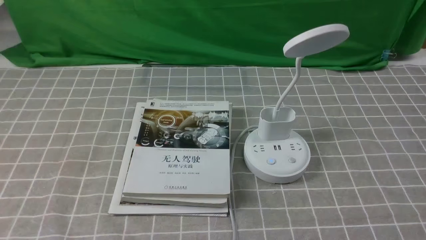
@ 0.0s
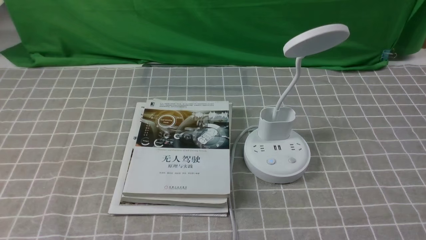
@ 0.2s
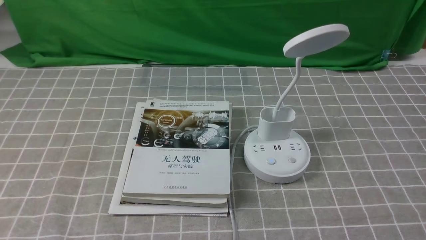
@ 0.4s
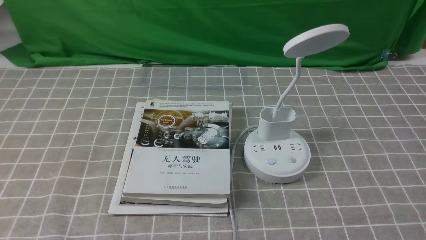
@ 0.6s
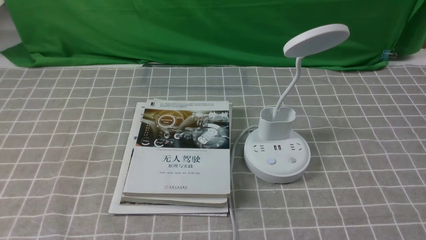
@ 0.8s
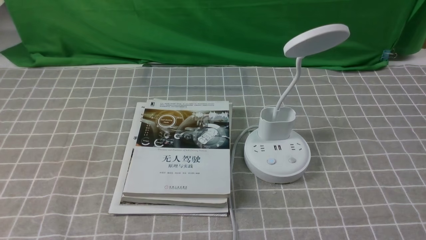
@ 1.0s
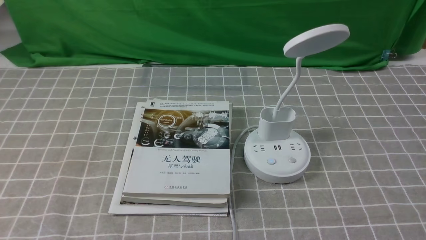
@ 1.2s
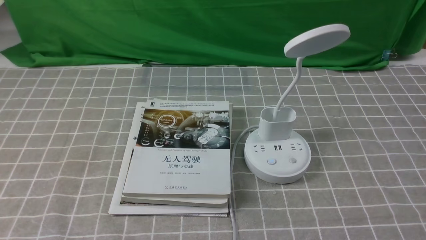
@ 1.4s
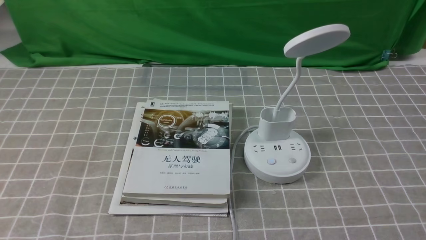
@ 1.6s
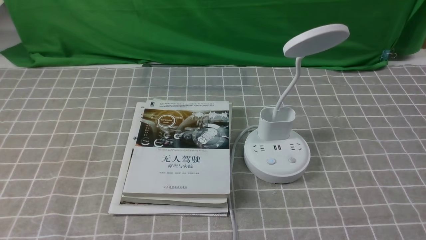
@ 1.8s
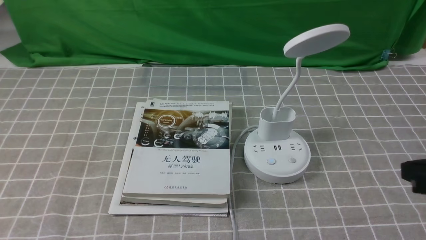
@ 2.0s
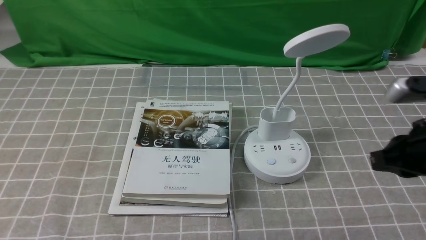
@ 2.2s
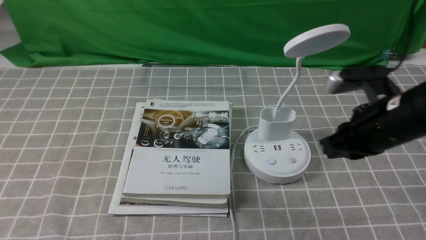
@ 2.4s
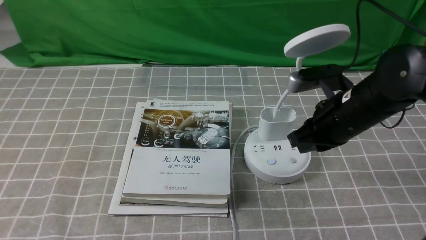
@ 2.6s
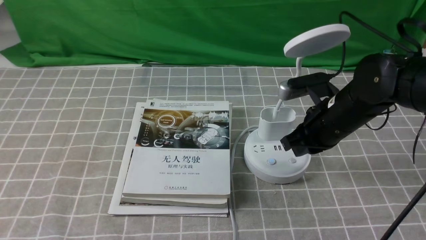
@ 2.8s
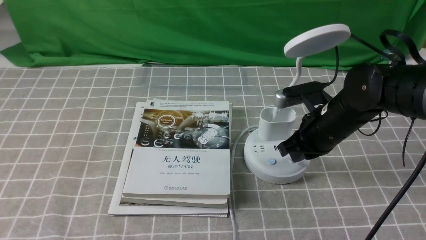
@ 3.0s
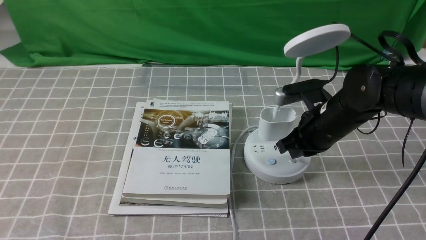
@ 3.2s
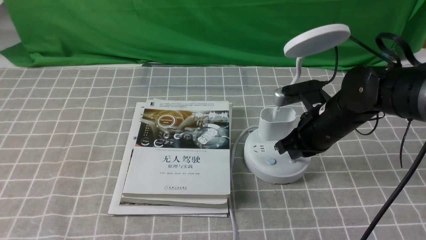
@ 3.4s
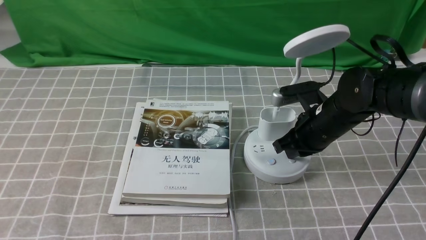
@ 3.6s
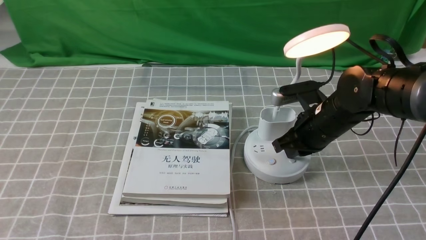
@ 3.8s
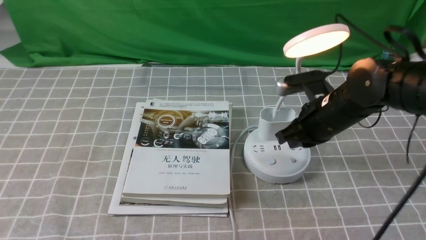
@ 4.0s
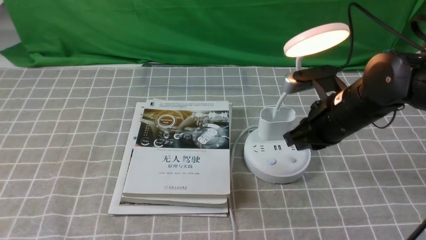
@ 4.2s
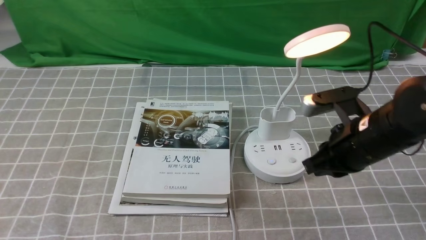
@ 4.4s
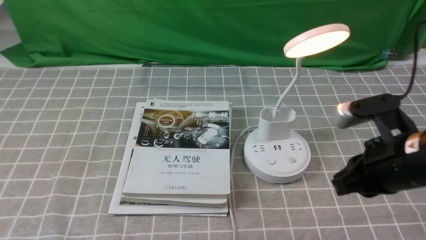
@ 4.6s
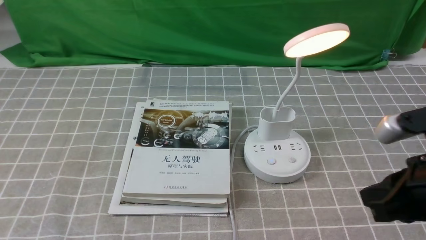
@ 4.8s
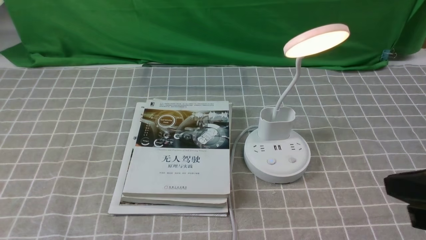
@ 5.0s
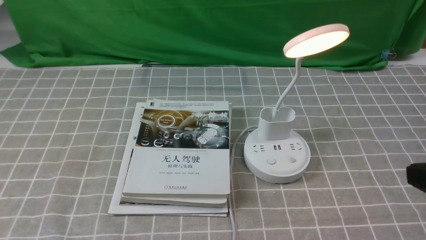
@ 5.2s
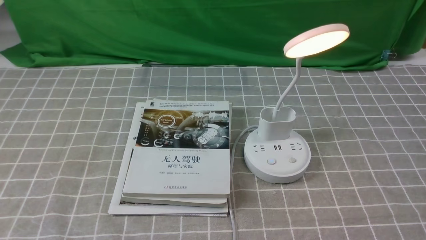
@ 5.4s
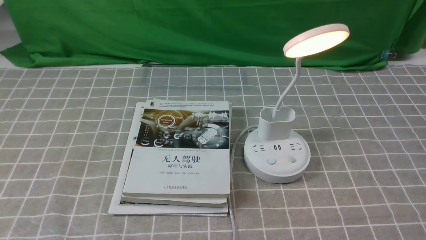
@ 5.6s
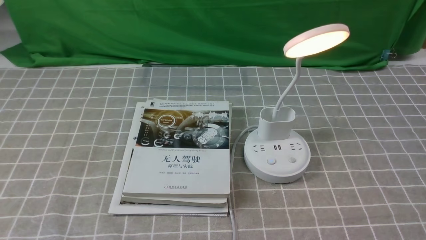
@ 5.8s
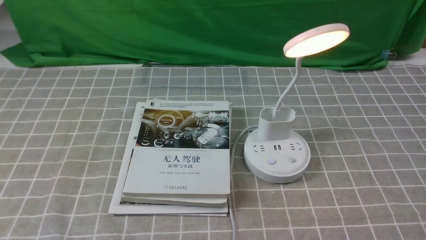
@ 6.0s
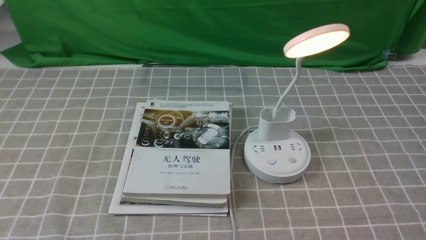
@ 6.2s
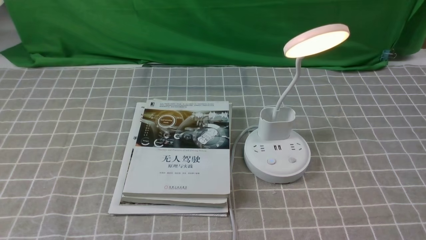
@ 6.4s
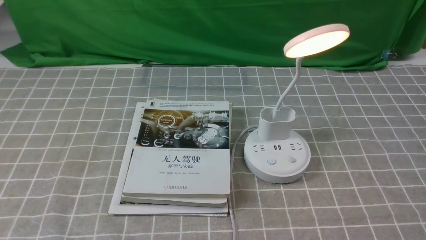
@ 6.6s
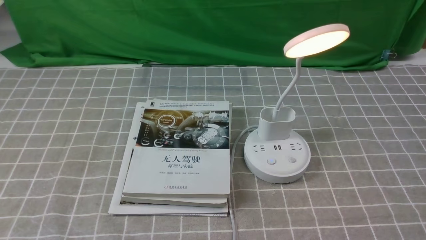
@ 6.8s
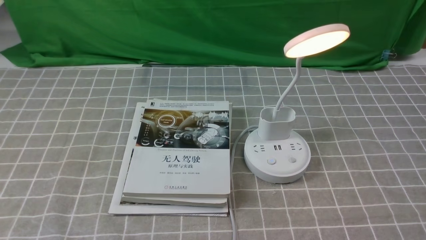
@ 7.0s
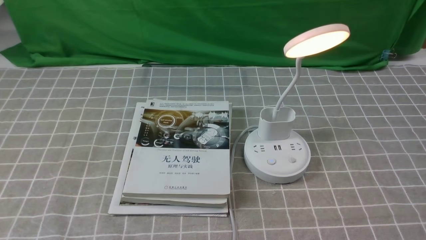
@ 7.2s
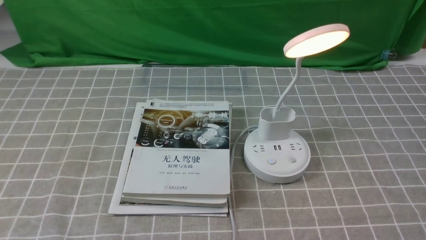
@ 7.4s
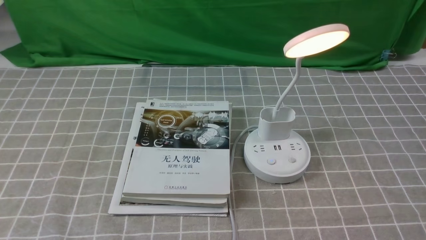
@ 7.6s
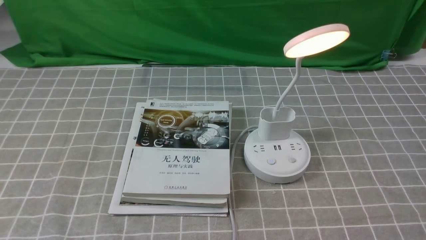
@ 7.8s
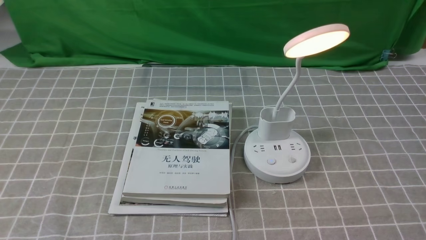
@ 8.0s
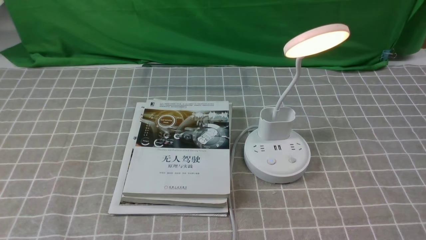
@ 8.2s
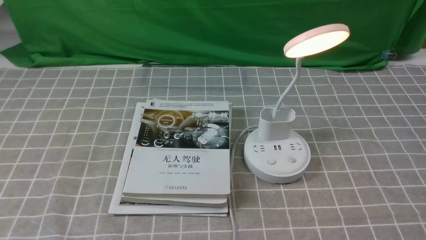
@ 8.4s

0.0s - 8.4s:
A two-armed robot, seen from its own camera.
Step, 0.0s - 4.2s: use the right arm to press the button switch on the lamp holder.
1.4s - 2.8s: The right gripper heads forward and to the left, covering approximately 30 cm, and closes.
2.8s - 4.2s: The grippers move only a little.
4.2s - 5.6s: The right gripper travels backward and to the right by roughly 25 cm.

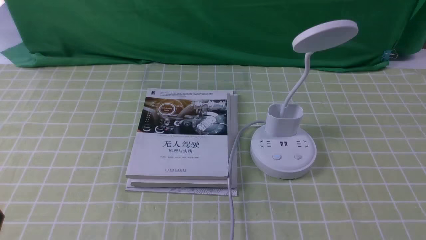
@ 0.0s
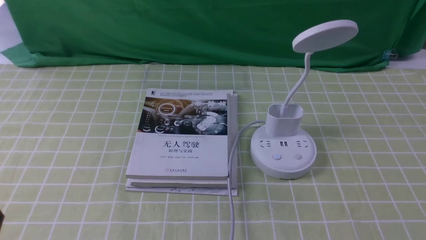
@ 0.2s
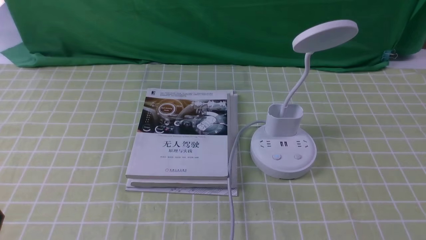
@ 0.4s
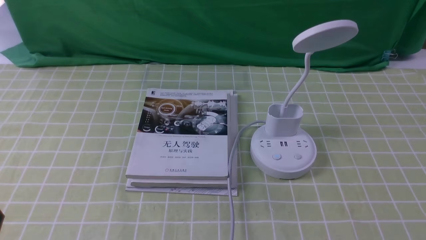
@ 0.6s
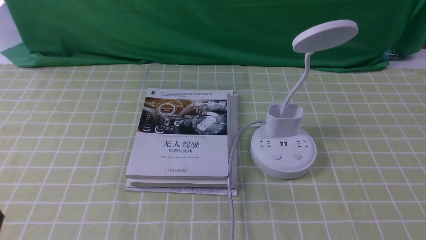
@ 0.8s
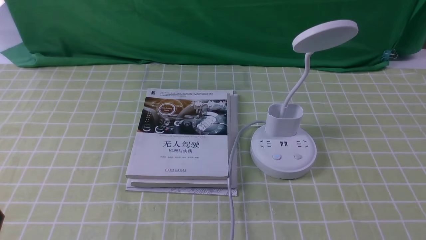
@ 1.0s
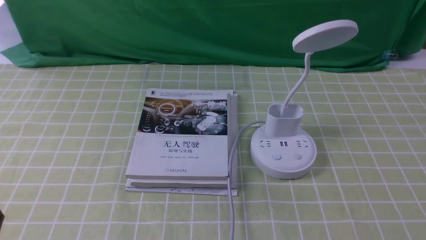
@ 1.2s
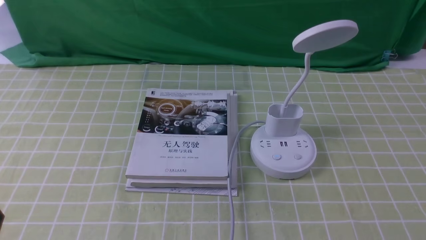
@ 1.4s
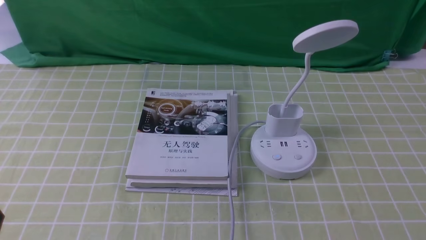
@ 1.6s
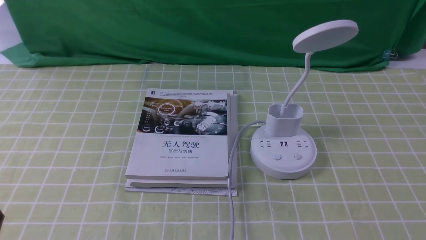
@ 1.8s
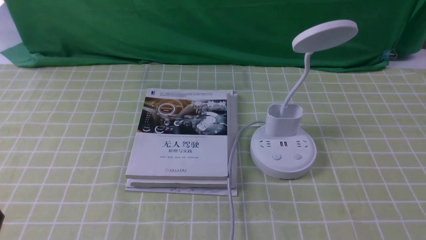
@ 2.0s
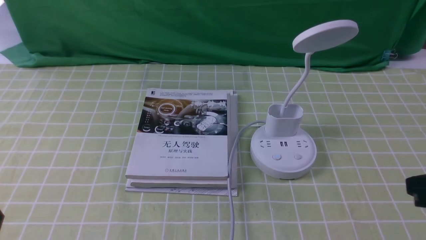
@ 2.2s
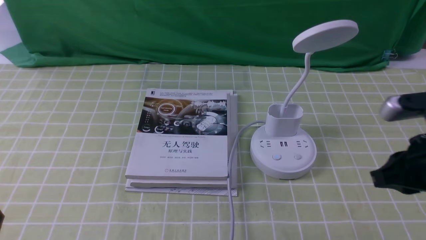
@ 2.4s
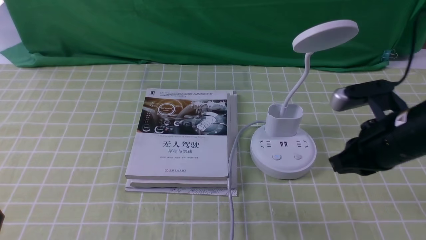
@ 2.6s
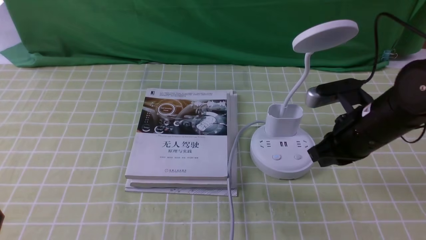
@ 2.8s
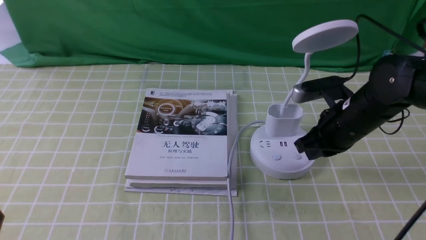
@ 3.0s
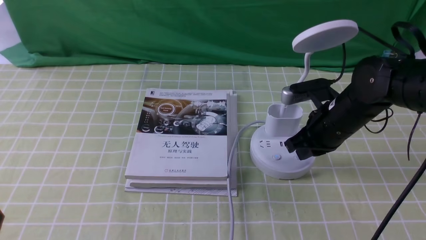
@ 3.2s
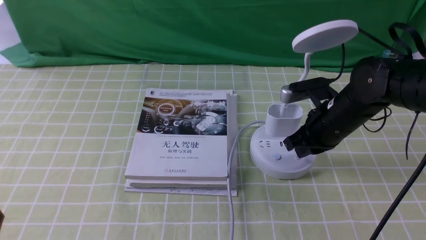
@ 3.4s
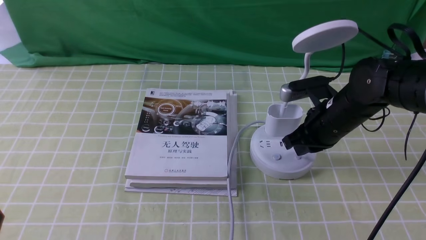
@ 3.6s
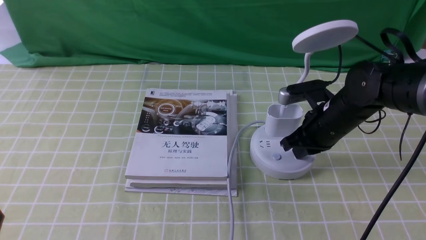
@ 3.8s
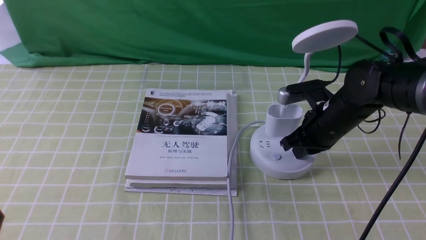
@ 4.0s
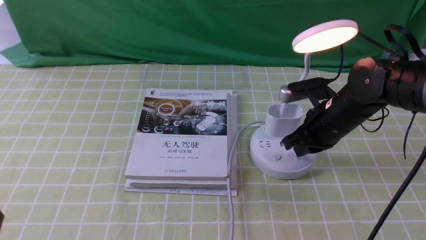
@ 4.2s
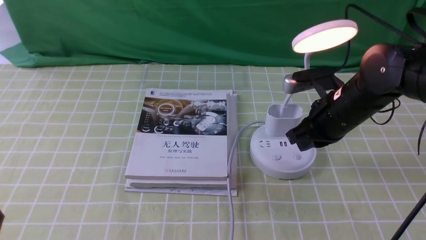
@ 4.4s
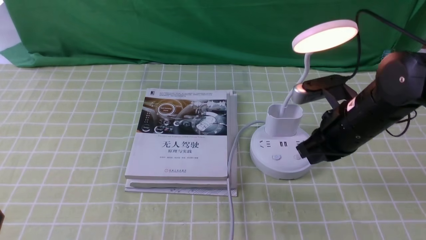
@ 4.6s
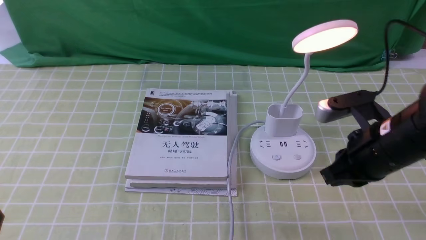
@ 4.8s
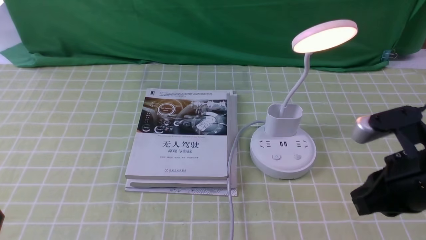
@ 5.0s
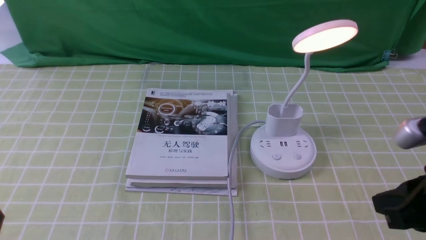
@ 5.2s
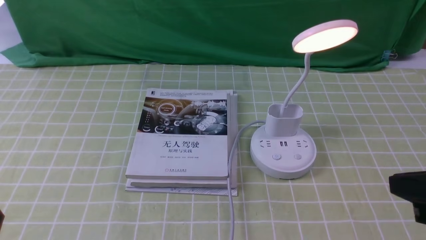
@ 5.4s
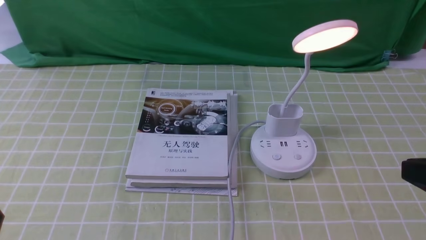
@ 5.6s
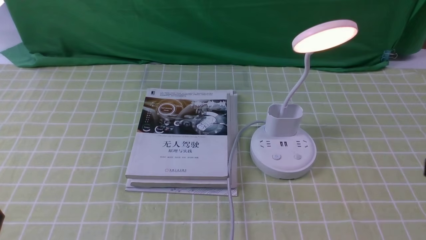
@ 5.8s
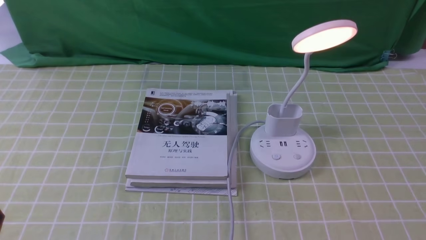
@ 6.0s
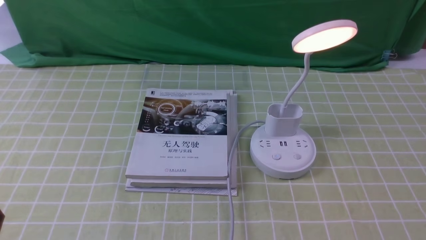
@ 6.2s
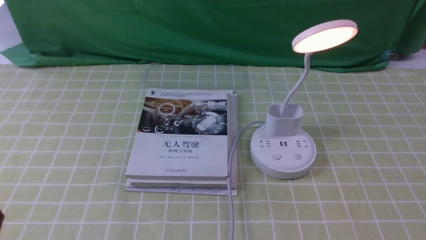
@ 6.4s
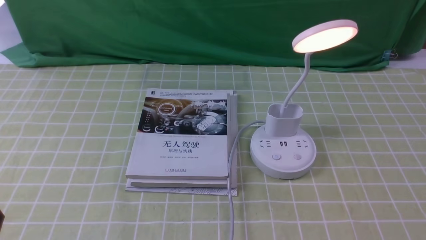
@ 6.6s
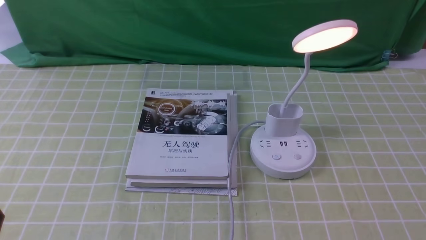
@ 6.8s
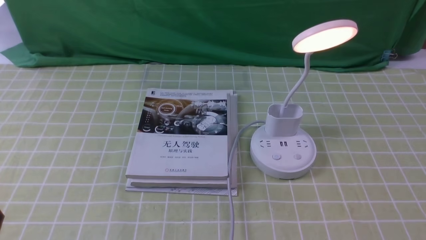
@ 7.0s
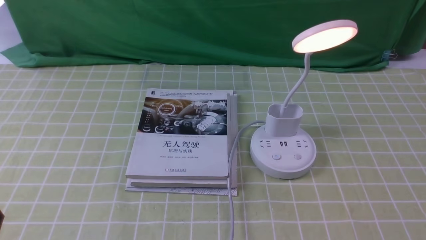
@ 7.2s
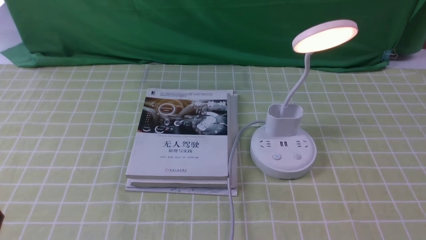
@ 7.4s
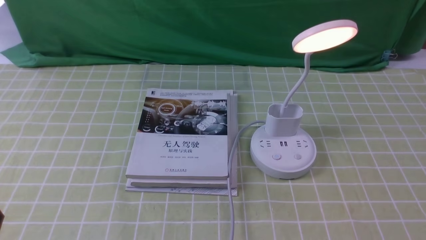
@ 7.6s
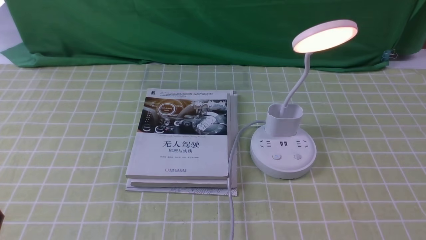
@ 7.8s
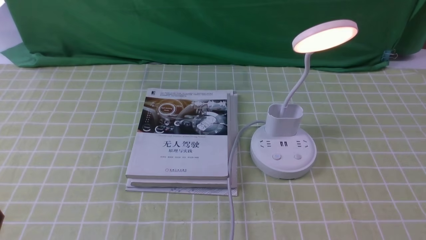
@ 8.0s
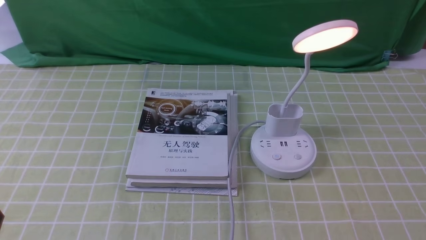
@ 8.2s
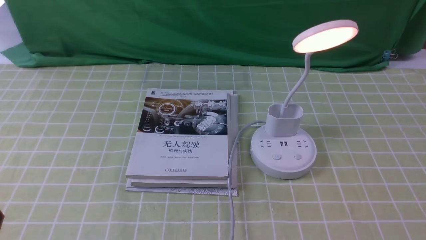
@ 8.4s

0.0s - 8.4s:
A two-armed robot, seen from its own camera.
Step, 0.0s - 4.4s: use the right arm to press the button switch on the lamp holder.
1.4s - 2.8s: The right gripper heads forward and to the left, covering some 25 cm, and closes up.
2.8s - 4.2s: The right gripper shifts by approximately 5 cm.
4.2s - 5.6s: The right gripper goes roughly 25 cm backward and upward.
5.6s - 7.0s: The right gripper heads downward and backward, covering roughly 15 cm.
